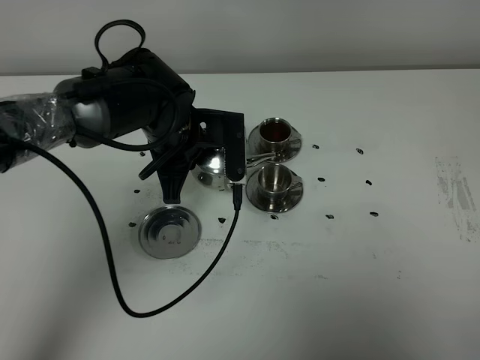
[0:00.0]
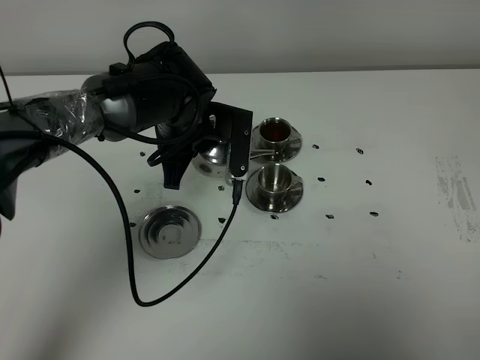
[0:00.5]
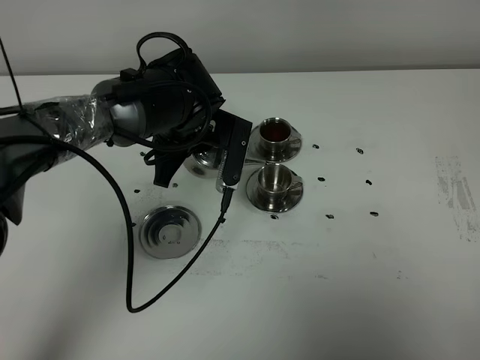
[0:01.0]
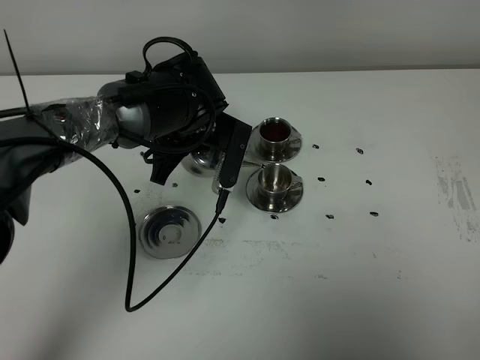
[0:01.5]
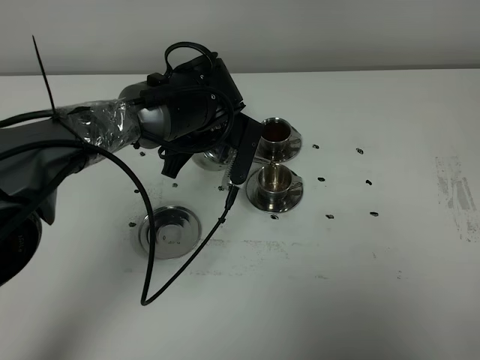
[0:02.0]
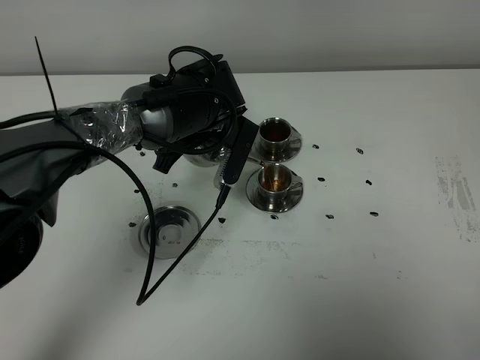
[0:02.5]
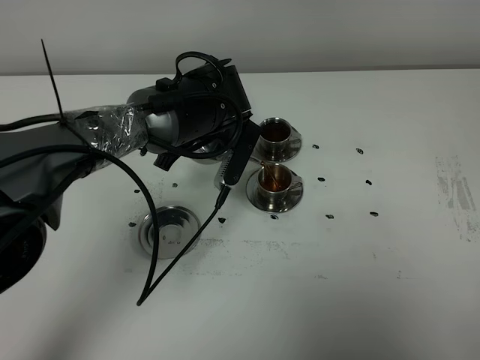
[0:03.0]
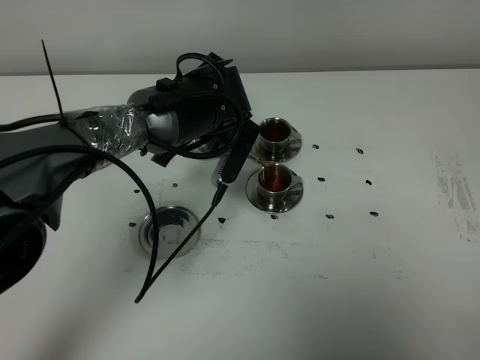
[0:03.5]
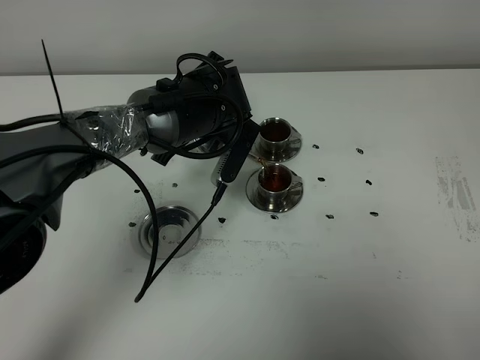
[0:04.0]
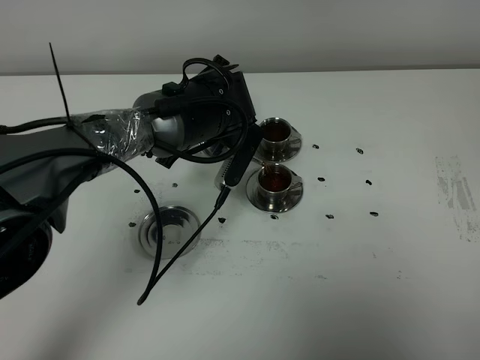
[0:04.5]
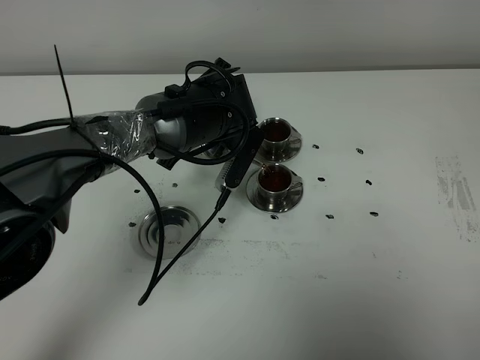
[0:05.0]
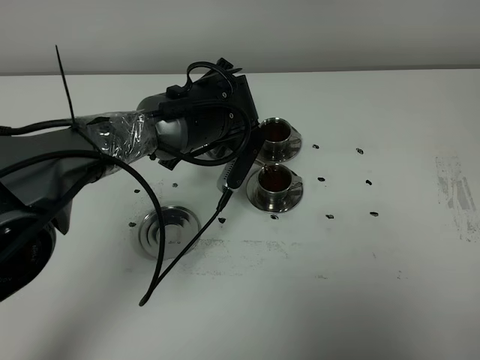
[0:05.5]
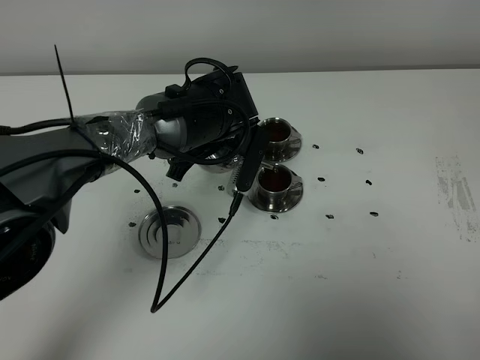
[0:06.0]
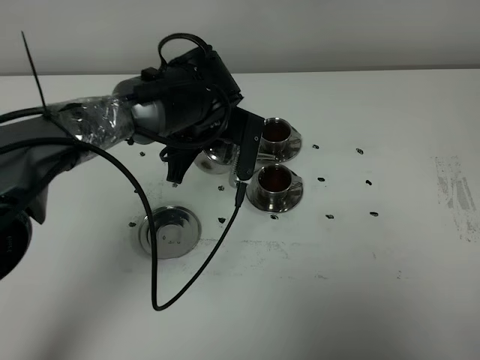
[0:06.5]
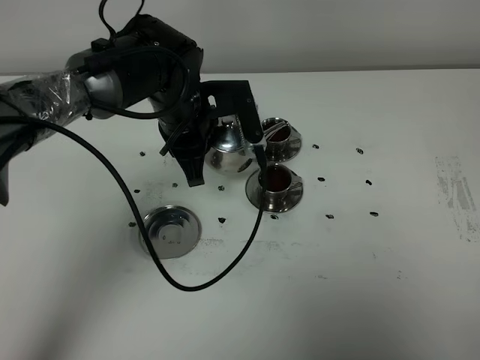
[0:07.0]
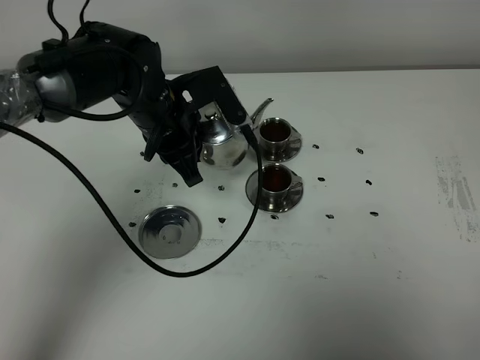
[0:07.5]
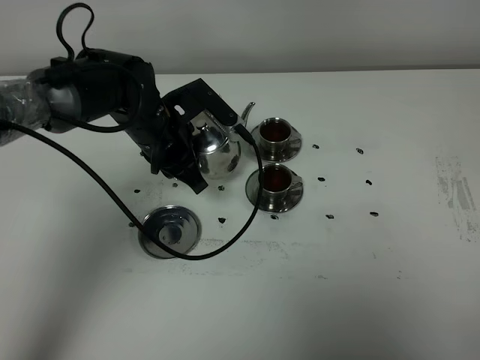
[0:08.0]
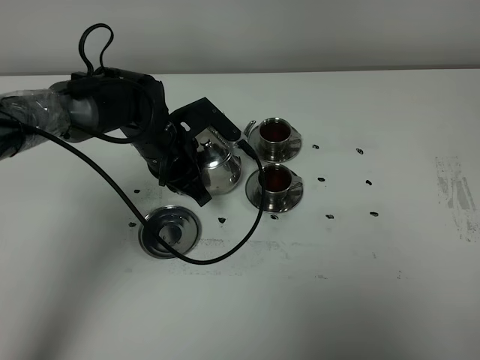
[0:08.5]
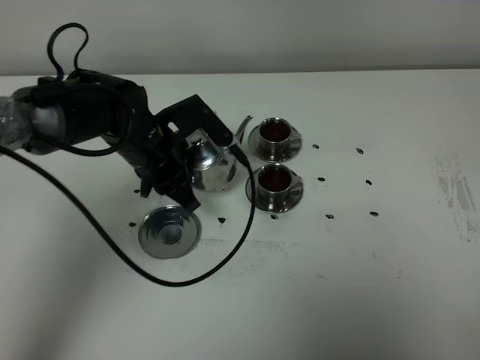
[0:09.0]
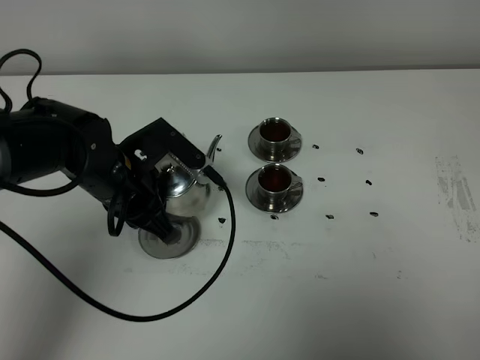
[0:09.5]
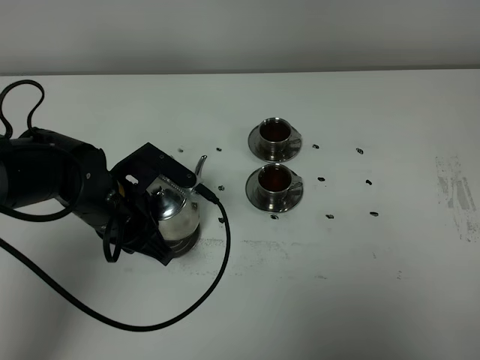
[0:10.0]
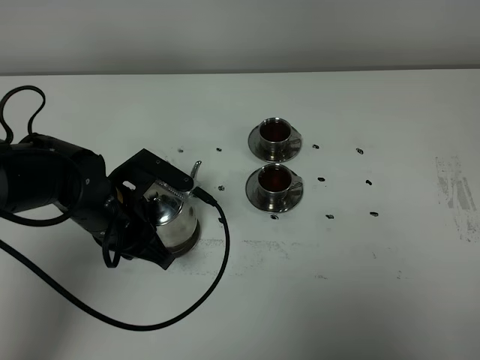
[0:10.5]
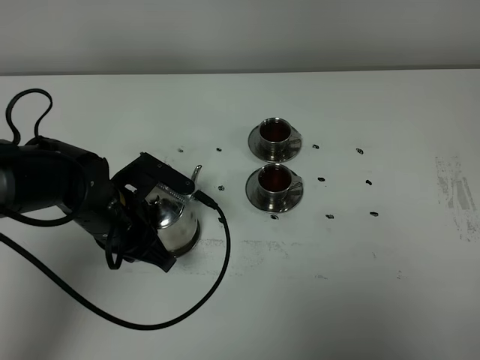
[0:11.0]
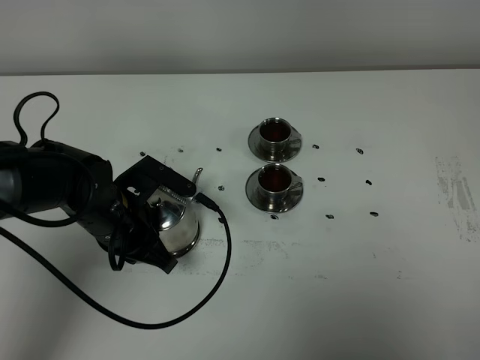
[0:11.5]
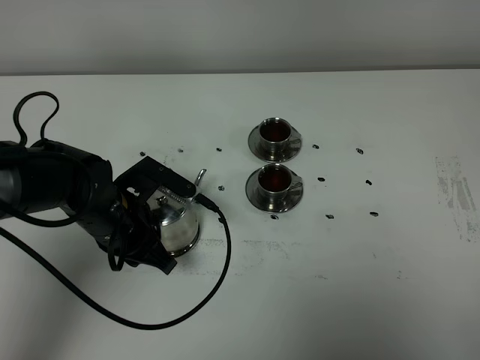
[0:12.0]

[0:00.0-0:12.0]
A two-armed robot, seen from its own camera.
Task of the whole recording: grasp the stainless steel teapot and pour the tea into the two stainless steel teacups one by one, put the stainless steel teapot back in its original place.
Step, 0:00.0 to 0:06.5: Pour tea into the teacup with the left gripper.
0:02.0 to 0:06.0: The grippers make only small movements.
0:06.0 to 0:08.0: The left gripper is displaced to the left by some 10 cm.
0:08.0 to 0:10.0: The left gripper heads backward, covering some 10 cm.
0:10.0 to 0:12.0: The grippers move only a little.

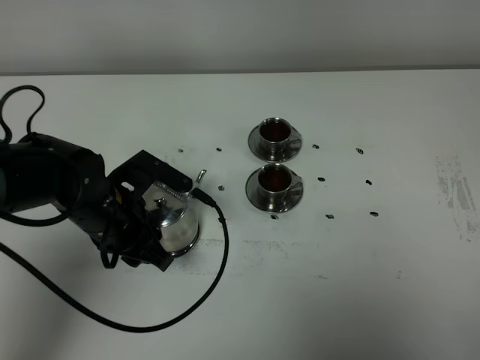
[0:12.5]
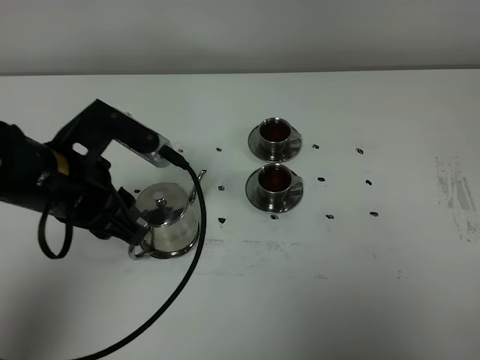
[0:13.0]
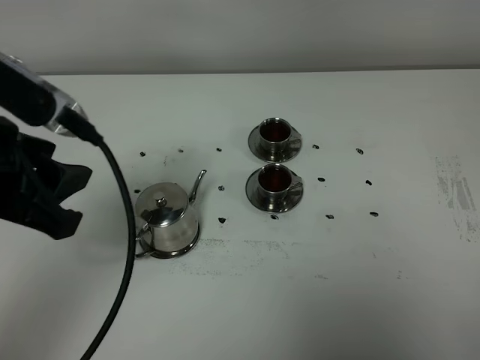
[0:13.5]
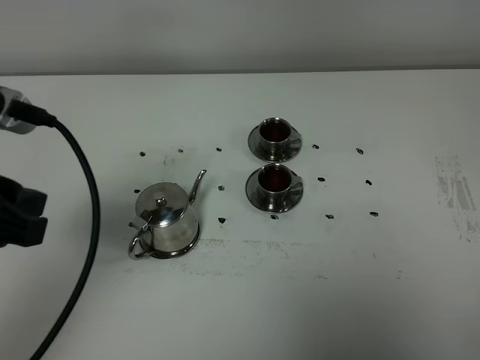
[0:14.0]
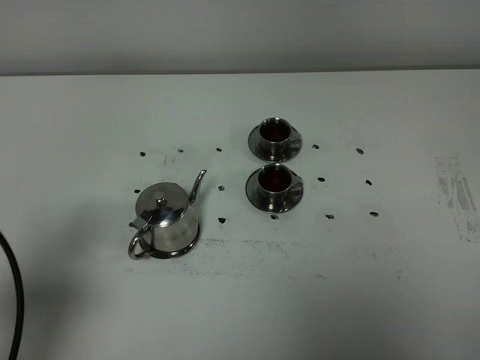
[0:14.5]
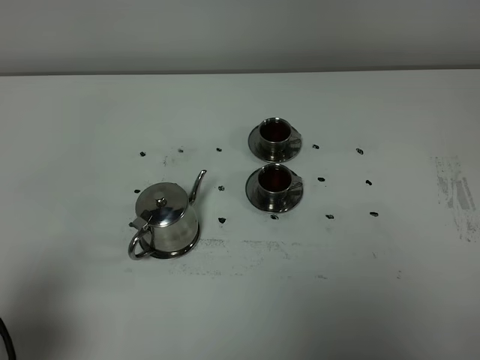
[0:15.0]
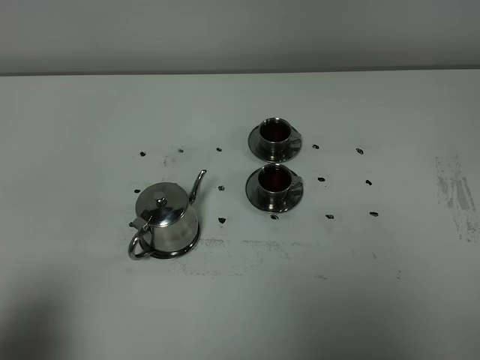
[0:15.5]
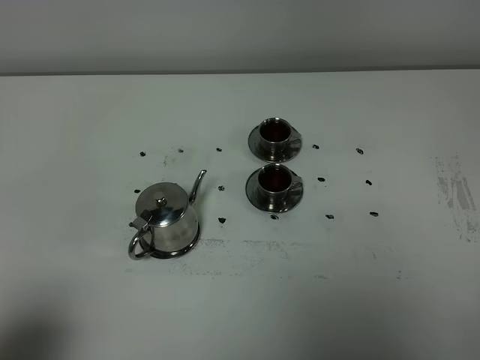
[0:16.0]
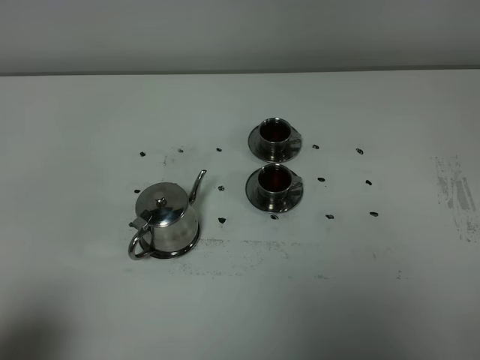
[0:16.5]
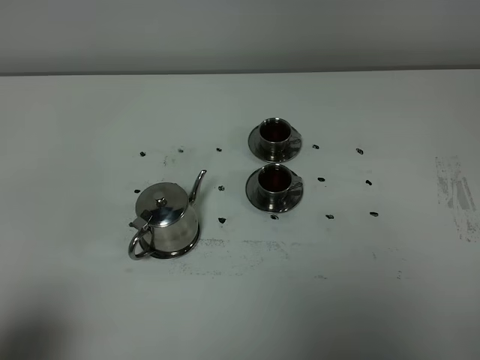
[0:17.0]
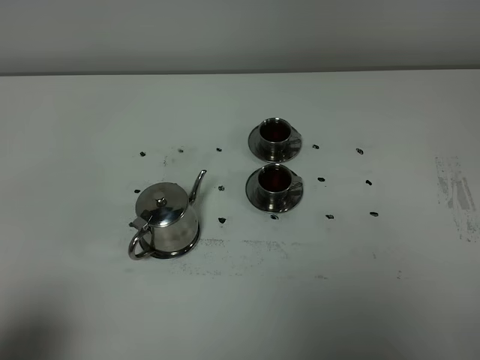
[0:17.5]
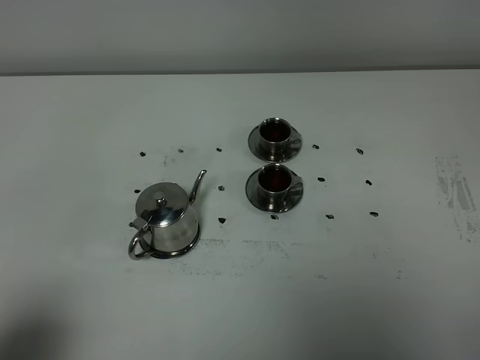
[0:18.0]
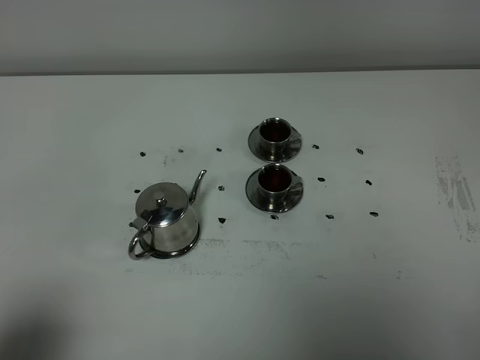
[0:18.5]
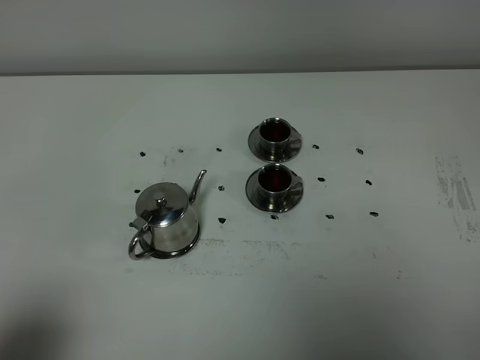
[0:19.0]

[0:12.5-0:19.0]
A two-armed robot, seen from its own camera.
Task of the whole recording: grasp the stainless steel teapot and pour the tea into the two stainless steel teacups one by one, put the stainless steel teapot back in its original place.
0:12.5 to 0:14.5: The left gripper is displaced backward, upward and to the left by some 25 cm.
0:14.5 to 0:17.0: The left gripper travels backward by some 10 cm.
0:17.0 to 0:19.0: Neither gripper changes place.
